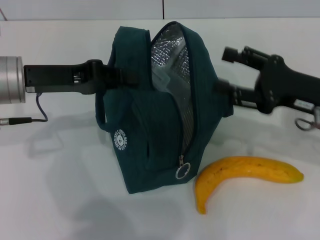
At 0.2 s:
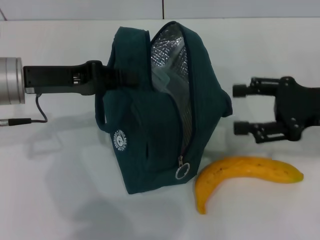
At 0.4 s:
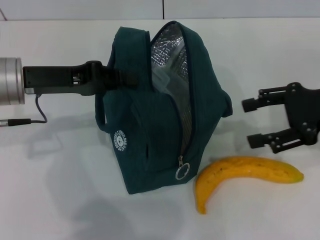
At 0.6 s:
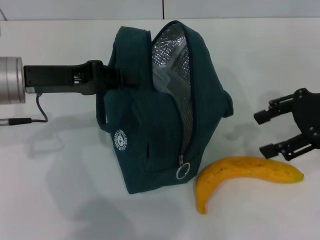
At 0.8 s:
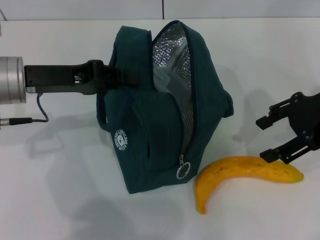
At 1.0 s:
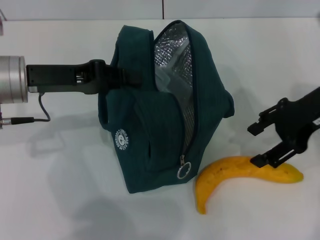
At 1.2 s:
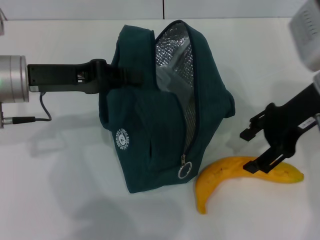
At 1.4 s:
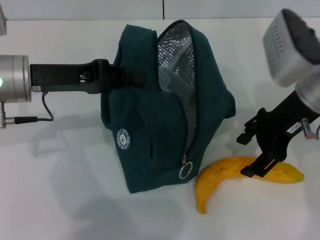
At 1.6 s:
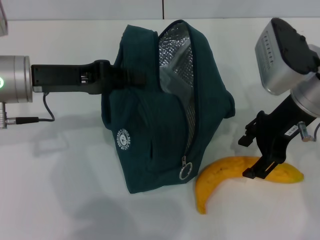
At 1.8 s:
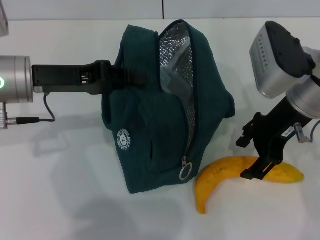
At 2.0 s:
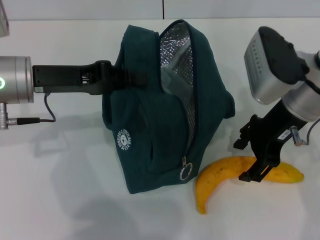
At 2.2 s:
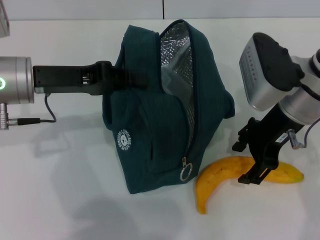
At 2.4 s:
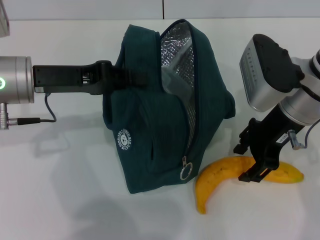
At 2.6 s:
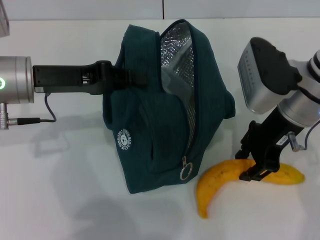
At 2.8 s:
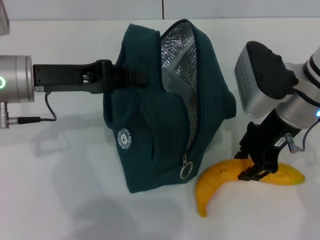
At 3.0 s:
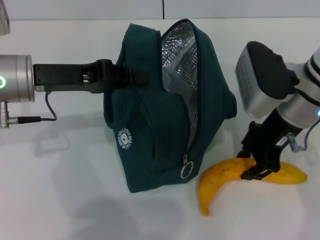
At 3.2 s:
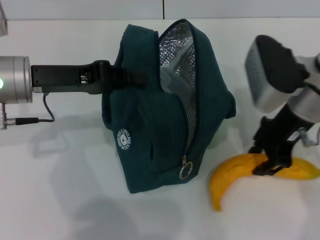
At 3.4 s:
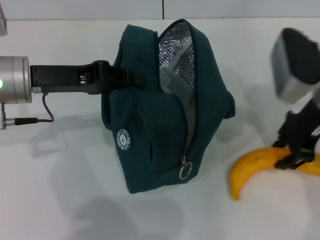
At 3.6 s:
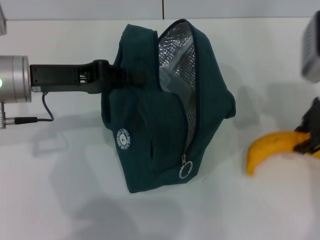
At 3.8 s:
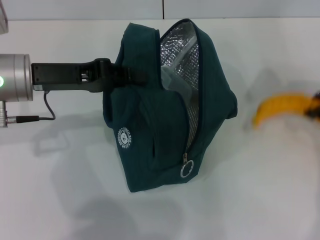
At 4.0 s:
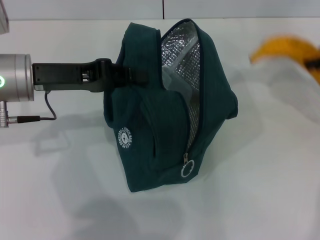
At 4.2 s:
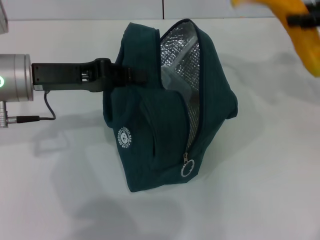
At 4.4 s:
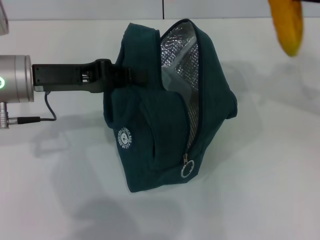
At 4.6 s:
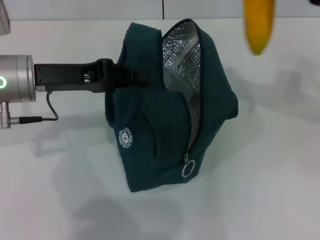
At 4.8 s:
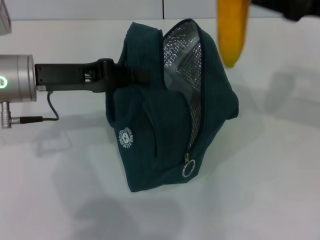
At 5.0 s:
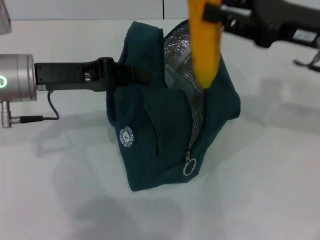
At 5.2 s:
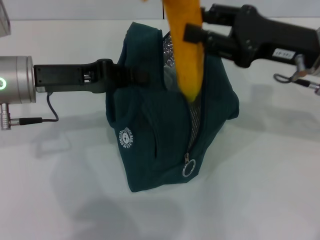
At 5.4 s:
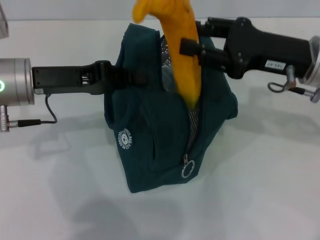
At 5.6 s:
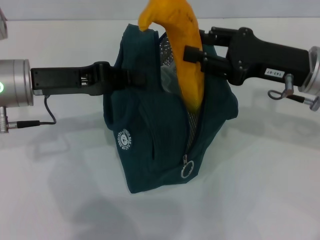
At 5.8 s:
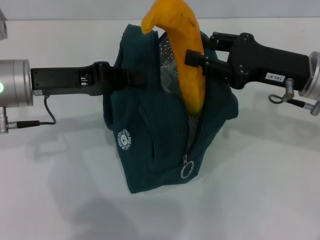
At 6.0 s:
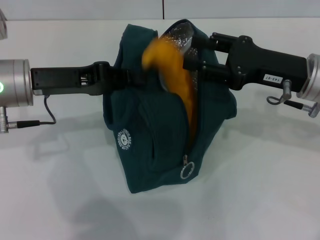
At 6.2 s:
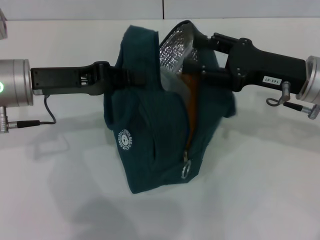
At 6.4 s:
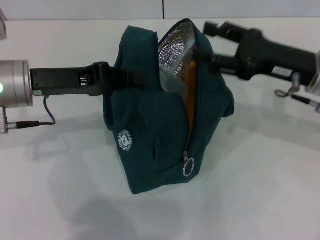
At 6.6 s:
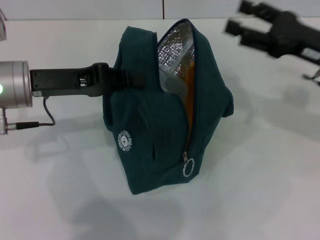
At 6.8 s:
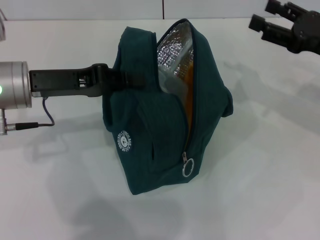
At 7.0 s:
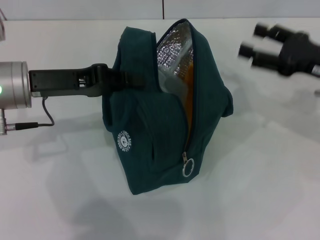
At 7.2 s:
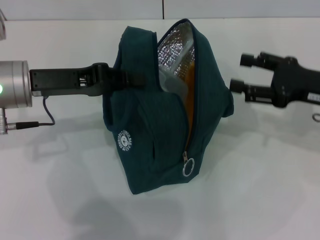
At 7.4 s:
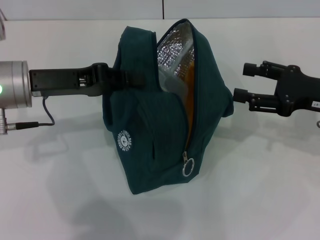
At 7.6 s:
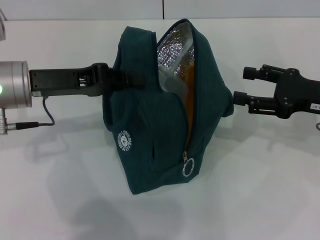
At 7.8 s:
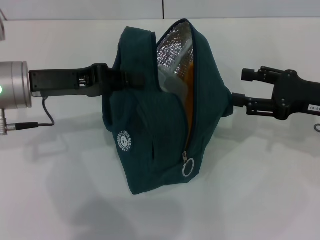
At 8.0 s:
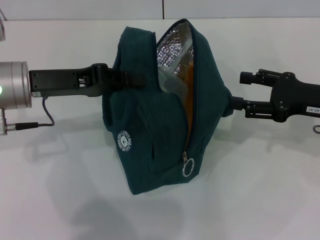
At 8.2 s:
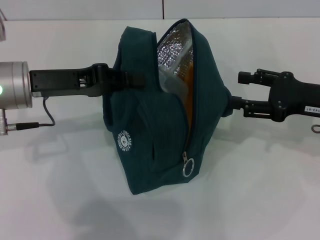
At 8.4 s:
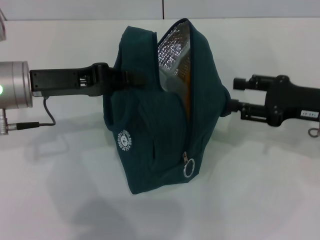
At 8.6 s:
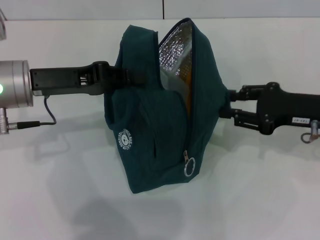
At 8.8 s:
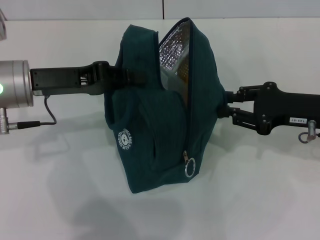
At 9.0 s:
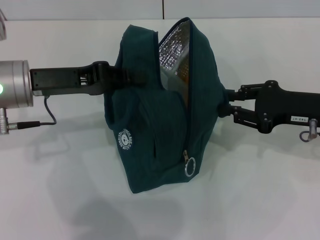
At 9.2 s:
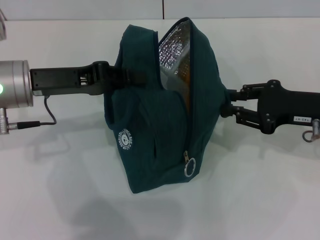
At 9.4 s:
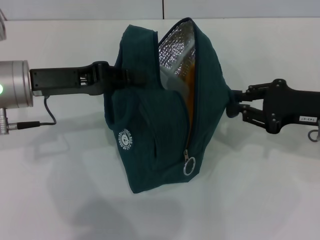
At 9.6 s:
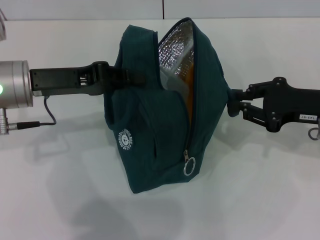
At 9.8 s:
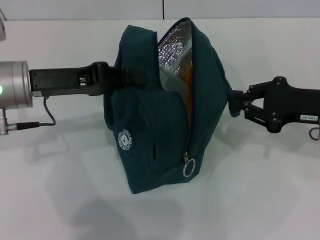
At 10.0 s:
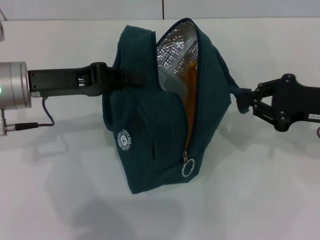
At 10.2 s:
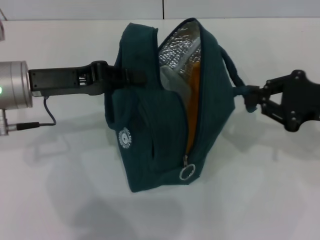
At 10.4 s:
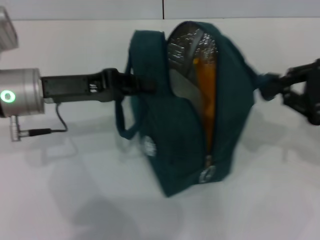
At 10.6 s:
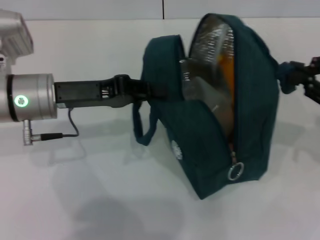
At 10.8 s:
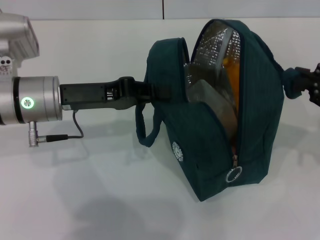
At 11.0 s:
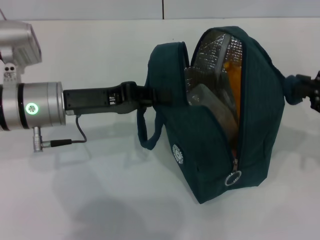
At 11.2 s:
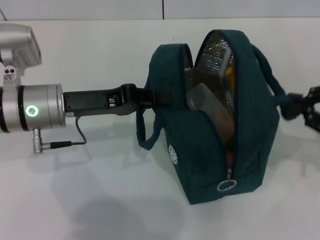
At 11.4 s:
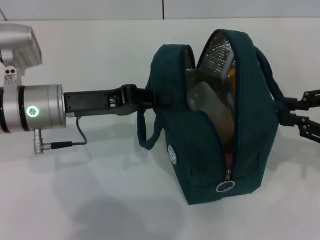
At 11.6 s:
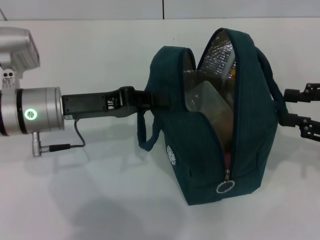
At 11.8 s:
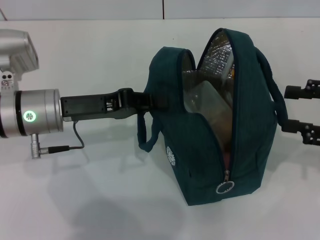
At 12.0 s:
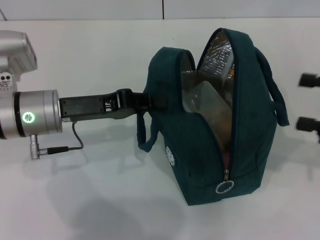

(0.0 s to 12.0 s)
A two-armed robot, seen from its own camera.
Step, 0.0 s - 2.8 s: Take the banana with your right hand.
Step, 6.4 s - 11.6 s: Hold the lunch bag with your right hand.
0.0 s - 1.6 s: The right gripper moves to the left and upward, some 10 cm.
1.6 s - 3.0 s: The right gripper closes its fingers.
3.0 s - 4.4 s: The right gripper travels to the right and upward by some 20 cm.
4.4 s - 6.0 s: The right gripper shifts about 15 cm downward and to the left.
6.0 s - 7.6 s: The right gripper moves to the right, some 5 cm.
7.6 s - 9.0 s: The right gripper closes up.
9.0 s - 10.4 s: The right gripper changes place by approximately 5 cm.
10.4 s - 12.0 s: The right gripper opens.

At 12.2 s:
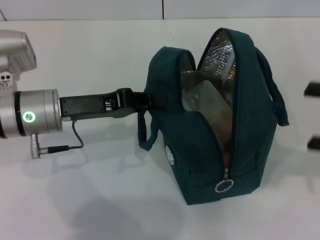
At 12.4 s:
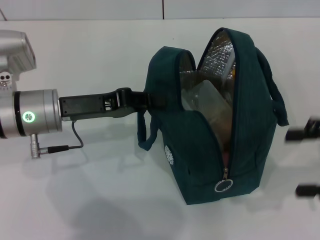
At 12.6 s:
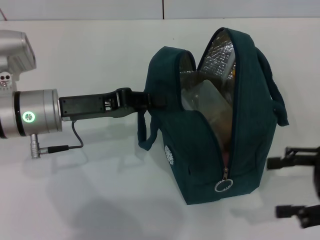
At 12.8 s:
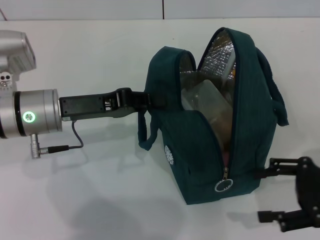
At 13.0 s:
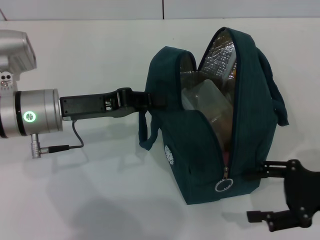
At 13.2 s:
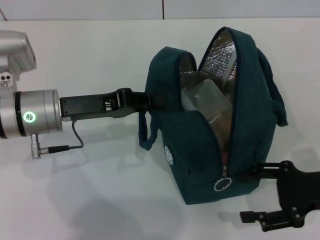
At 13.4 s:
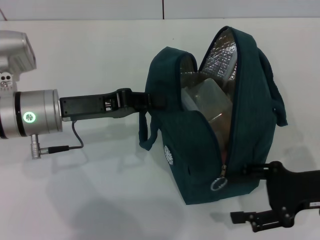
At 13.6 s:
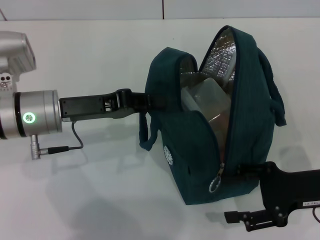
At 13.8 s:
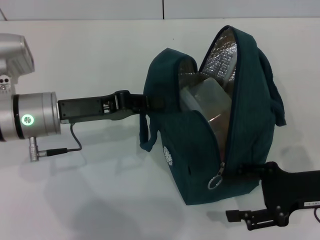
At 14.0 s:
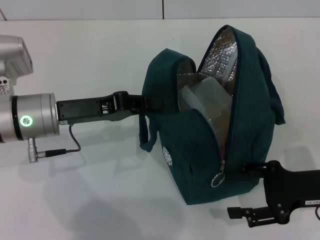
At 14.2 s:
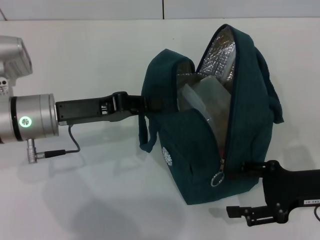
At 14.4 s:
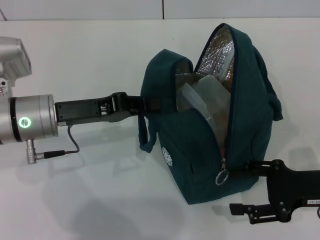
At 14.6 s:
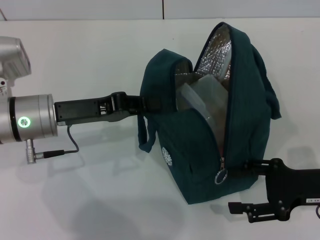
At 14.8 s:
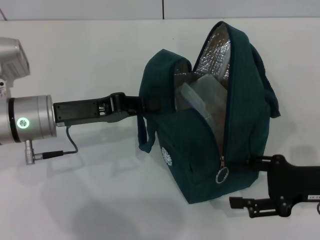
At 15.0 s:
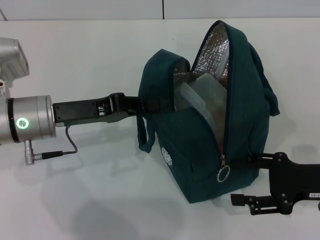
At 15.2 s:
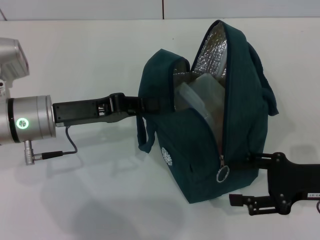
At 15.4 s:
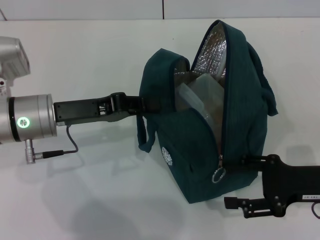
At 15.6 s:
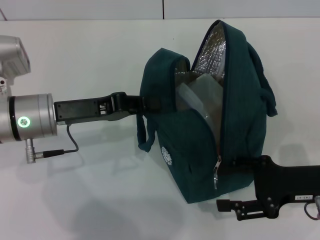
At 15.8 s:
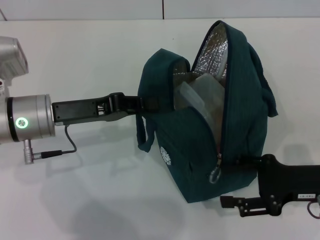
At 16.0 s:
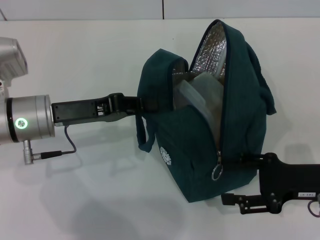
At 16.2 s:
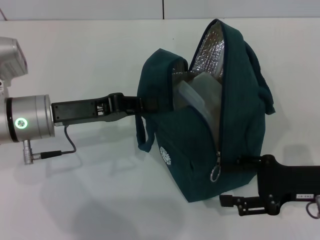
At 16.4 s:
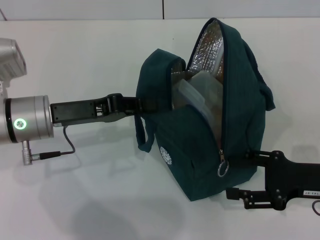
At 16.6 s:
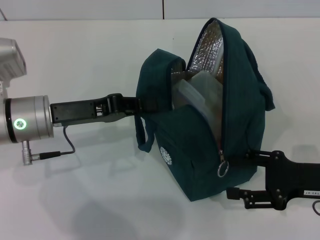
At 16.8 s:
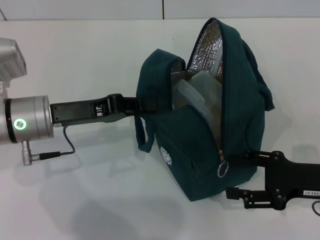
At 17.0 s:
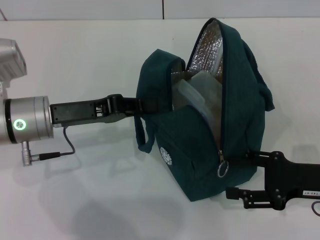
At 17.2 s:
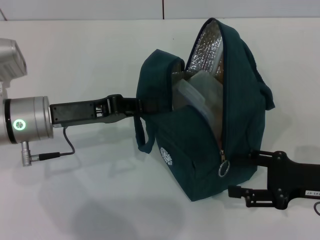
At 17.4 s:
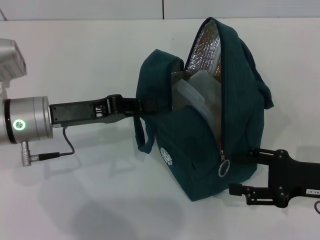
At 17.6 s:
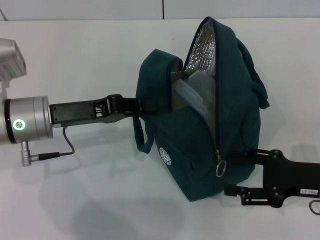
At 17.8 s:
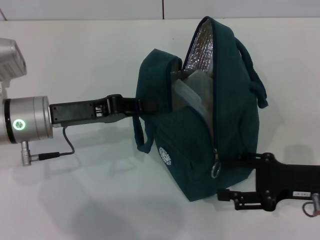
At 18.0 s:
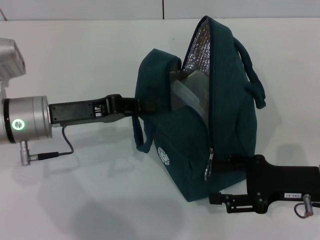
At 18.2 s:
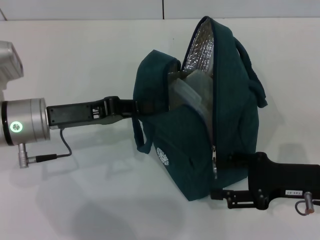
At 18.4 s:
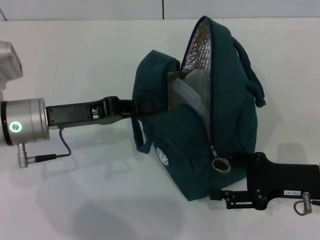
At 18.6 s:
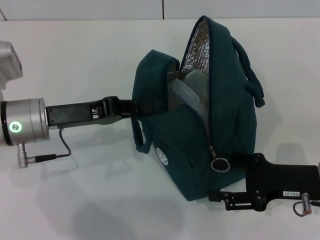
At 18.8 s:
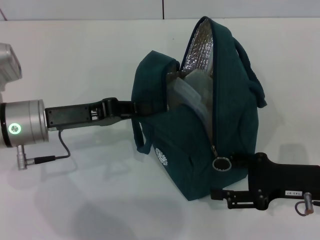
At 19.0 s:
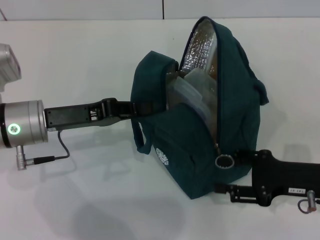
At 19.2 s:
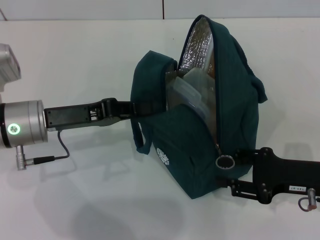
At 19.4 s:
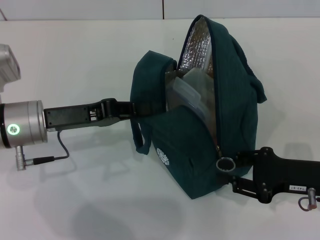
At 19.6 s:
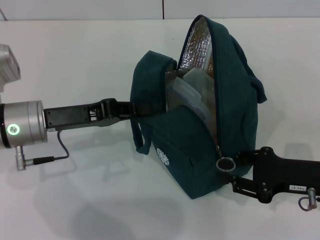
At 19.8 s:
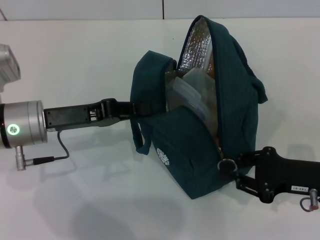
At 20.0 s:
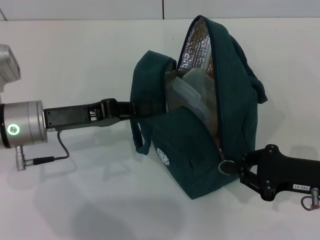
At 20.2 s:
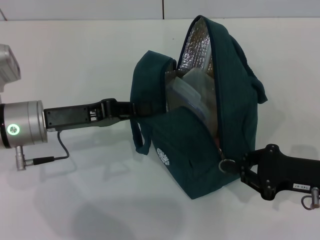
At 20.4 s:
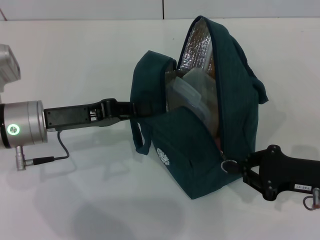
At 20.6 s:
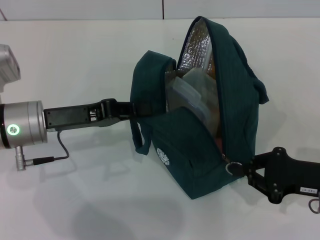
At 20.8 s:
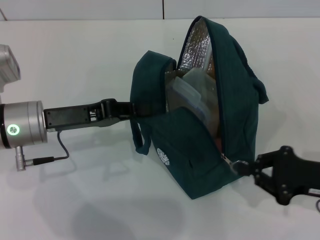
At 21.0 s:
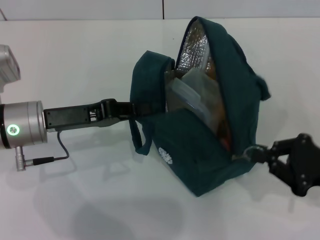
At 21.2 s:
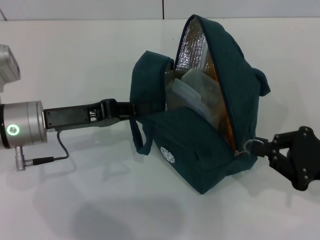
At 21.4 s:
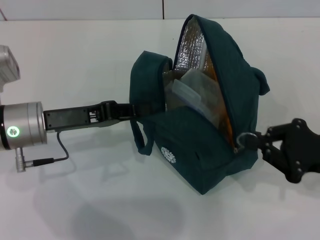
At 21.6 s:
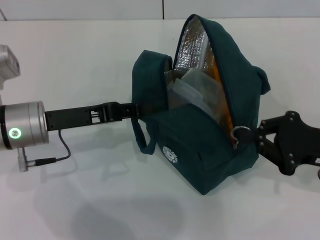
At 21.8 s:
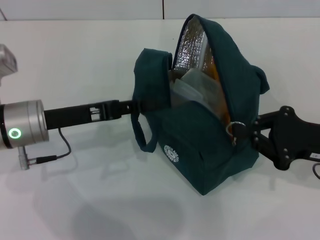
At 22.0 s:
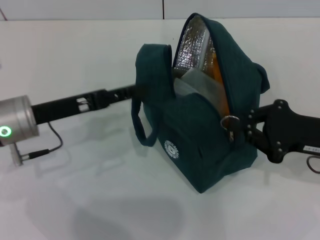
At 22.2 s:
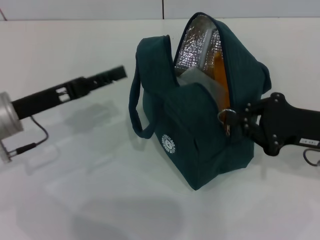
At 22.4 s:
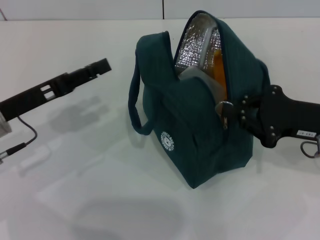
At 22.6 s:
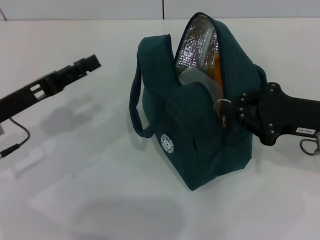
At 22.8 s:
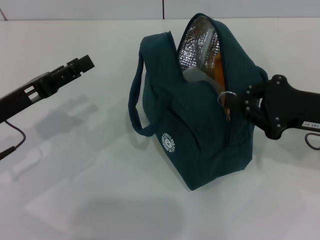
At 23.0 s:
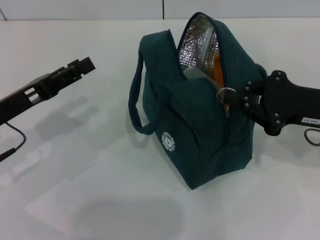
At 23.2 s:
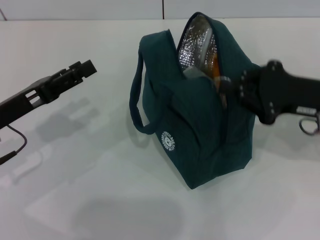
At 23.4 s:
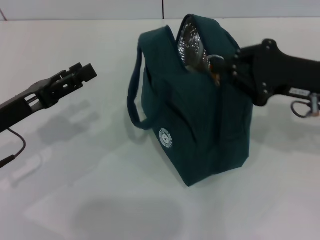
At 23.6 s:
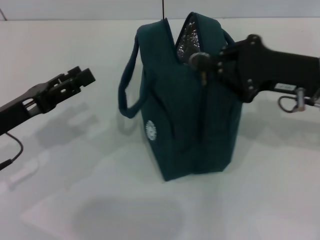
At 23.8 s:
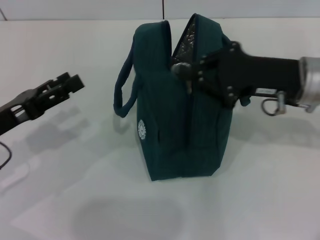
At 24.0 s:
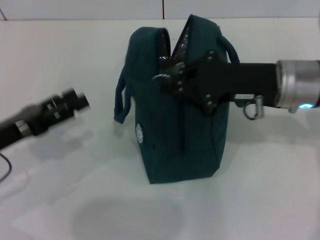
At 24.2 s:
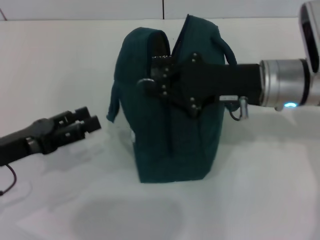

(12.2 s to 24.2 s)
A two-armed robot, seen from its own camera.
12.2 s - 13.8 s: The right gripper goes roughly 15 cm downward and to the left.
13.8 s - 18.2 s: There are only small adjustments of the grippers.
18.2 s - 19.8 s: The right gripper closes.
19.8 s - 21.2 s: The right gripper closes.
21.2 s - 22.6 s: The right gripper is displaced forward by approximately 5 cm. The left gripper travels to the left by approximately 5 cm, and opens up.
22.6 s - 24.2 s: The right gripper is displaced to the left by about 10 cm.
